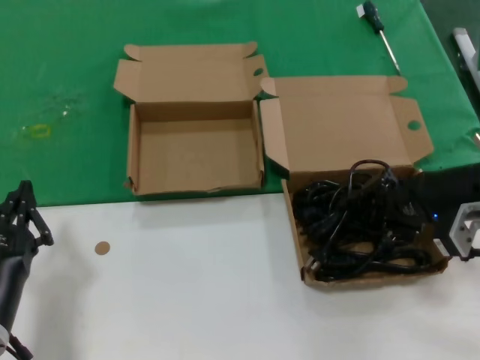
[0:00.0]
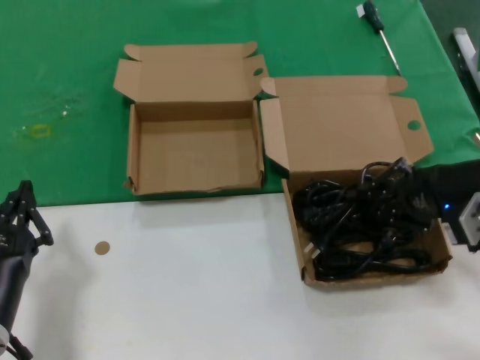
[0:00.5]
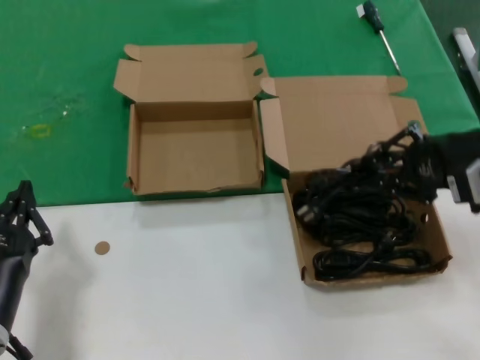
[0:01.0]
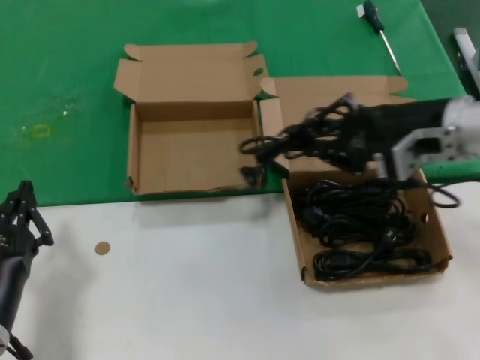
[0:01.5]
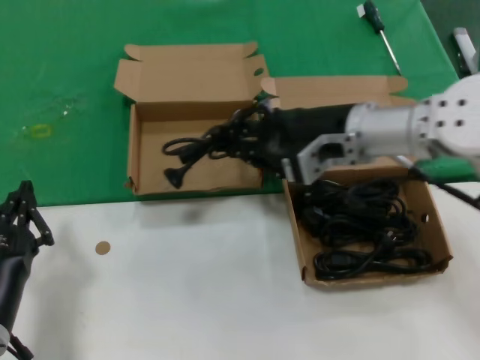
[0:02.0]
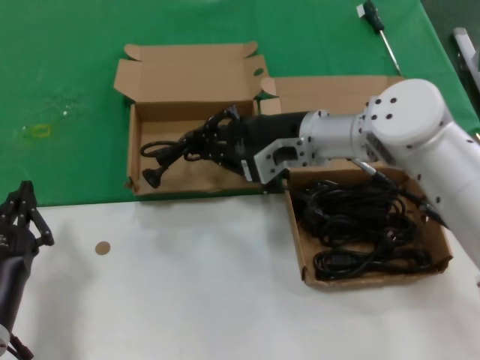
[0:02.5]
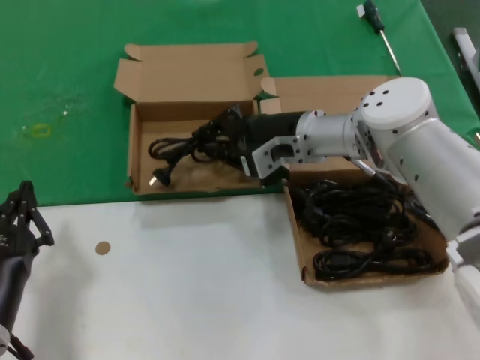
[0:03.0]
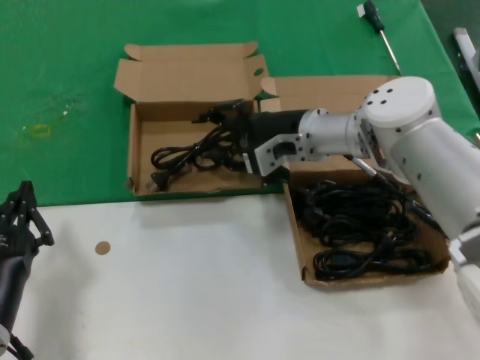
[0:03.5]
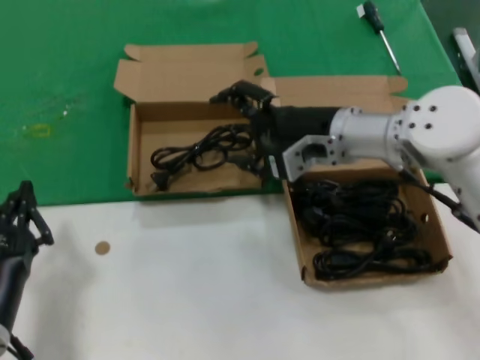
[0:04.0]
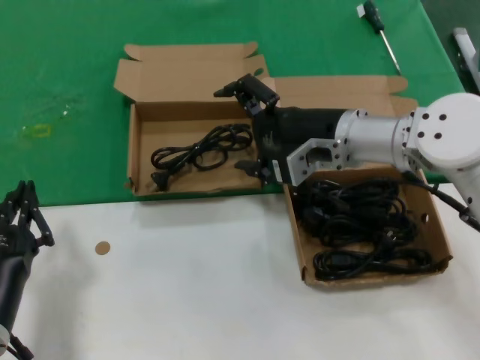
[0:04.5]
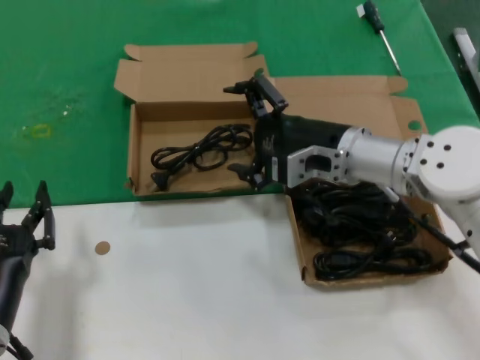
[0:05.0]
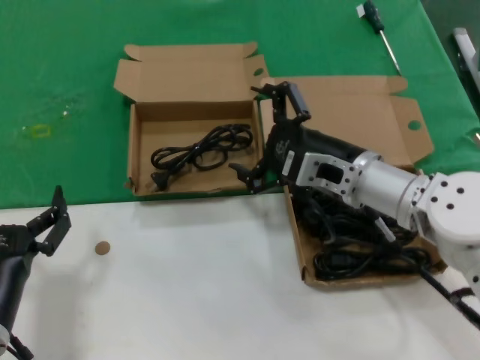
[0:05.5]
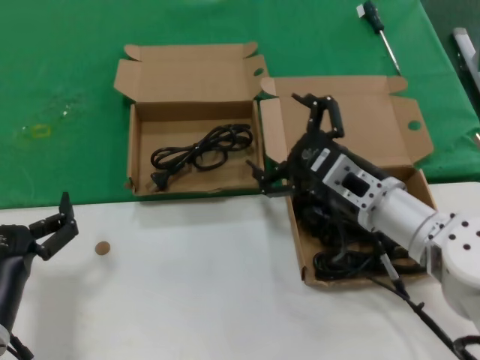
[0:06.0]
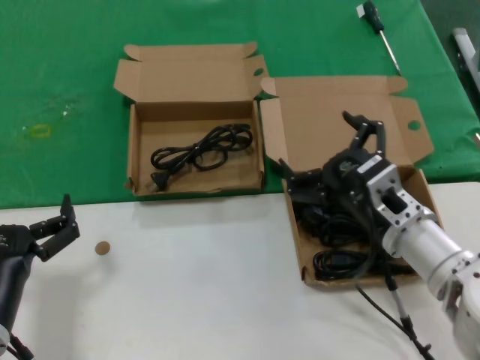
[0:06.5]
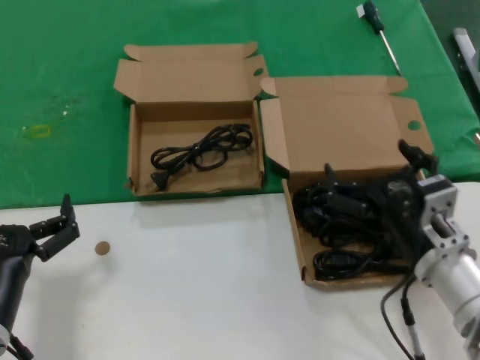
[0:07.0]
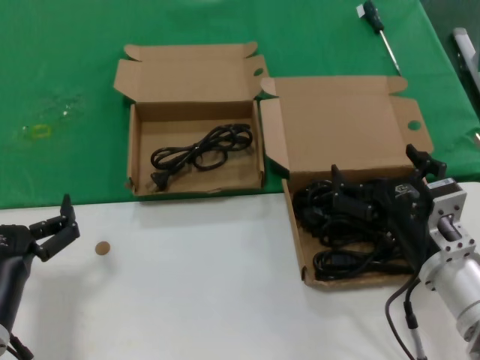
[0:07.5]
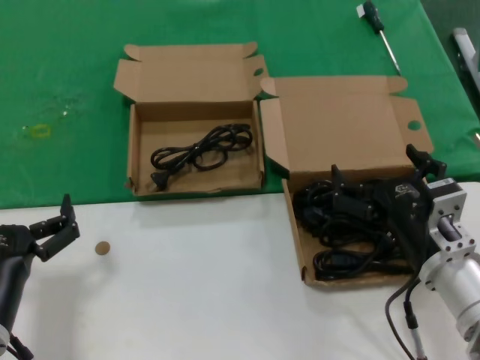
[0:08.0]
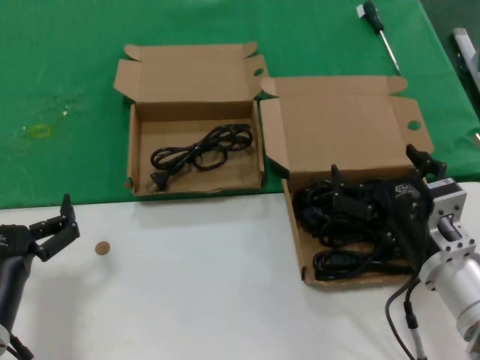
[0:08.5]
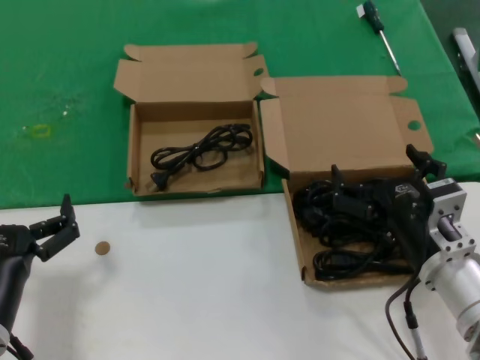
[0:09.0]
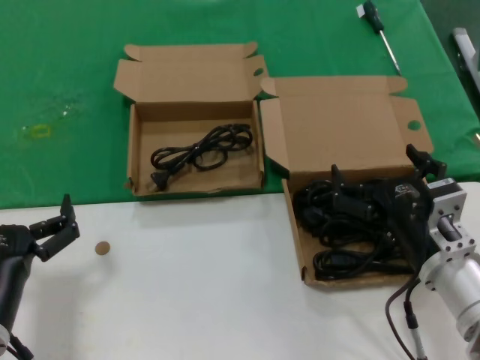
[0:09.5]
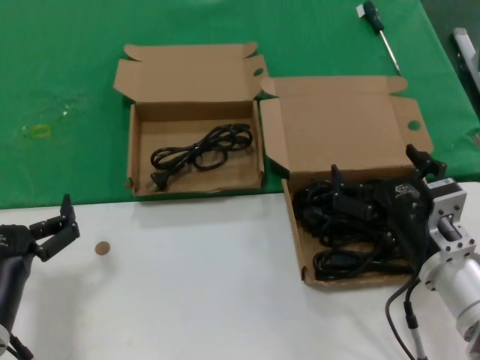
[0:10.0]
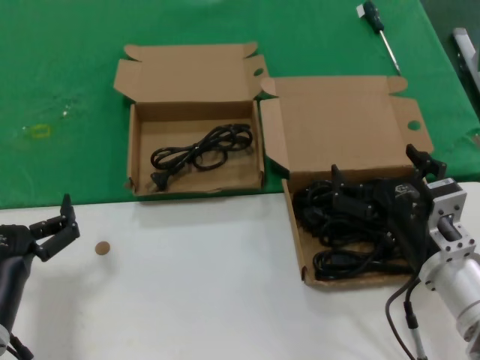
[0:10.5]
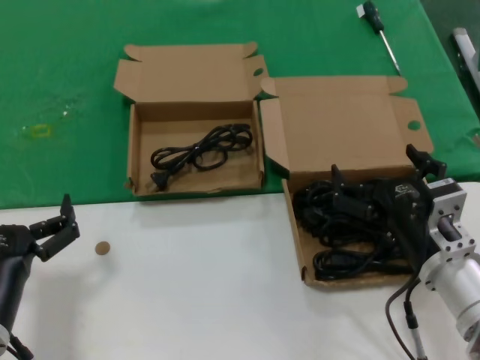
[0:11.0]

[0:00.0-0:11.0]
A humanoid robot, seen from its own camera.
Task of the whole recording: take the parts from the box containing them and put them into an empty box.
Step, 0:00.5 to 0:03.5: Place the data cable in the another box.
0:00.0 to 0:02.0: The right hand travels to the left by roughly 15 cm.
0:02.0 to 0:03.5: The right hand moves forward and downward, about 10 cm.
0:03.5 to 0:05.5: The right hand goes roughly 10 cm backward.
0:05.5 to 0:07.5: The right hand travels backward, downward and to the right by approximately 15 cm.
0:07.5 to 0:11.0: The two hands keep their place.

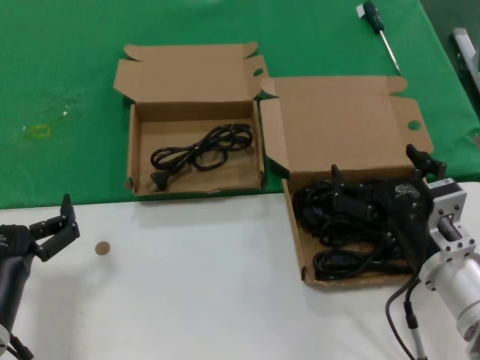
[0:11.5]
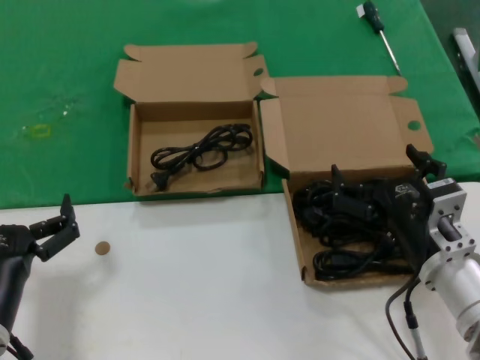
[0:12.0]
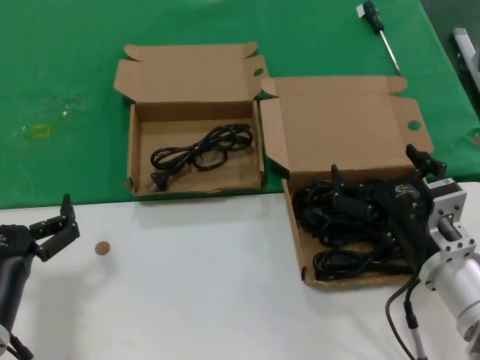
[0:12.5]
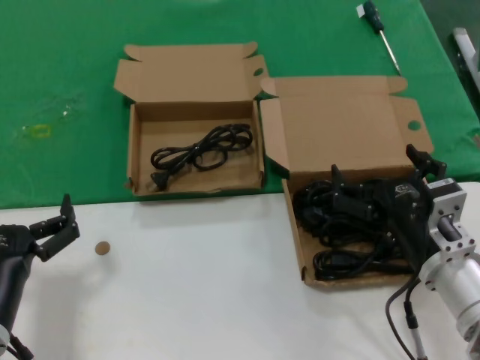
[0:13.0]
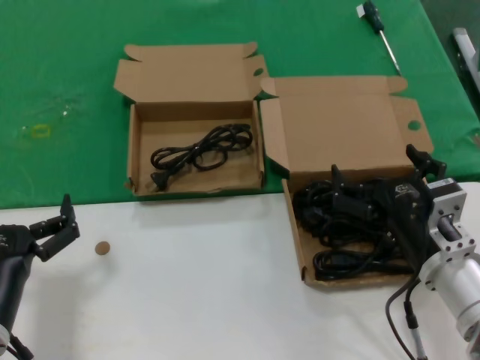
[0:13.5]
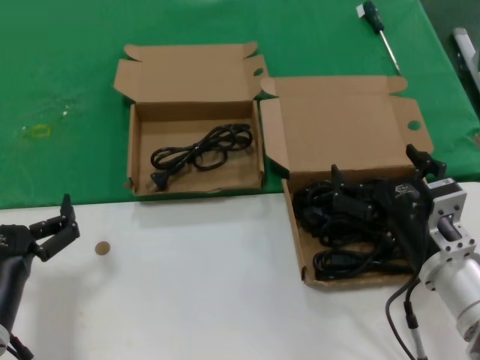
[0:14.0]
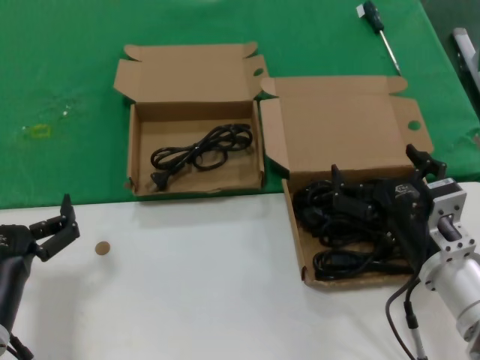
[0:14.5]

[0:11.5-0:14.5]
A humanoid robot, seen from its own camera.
Task of the whole recording: take the parts from the box containing them and put them into an empty box.
0:11.5 to 0:14.5: Both hands stay about where they are.
